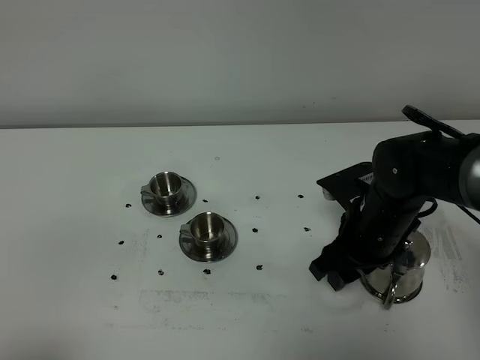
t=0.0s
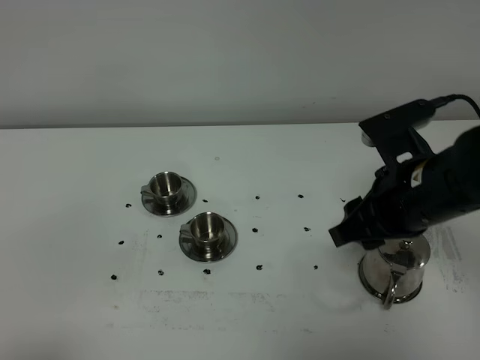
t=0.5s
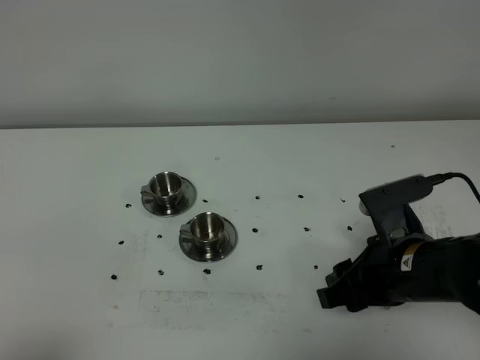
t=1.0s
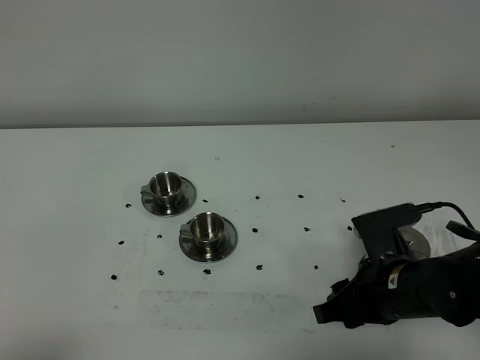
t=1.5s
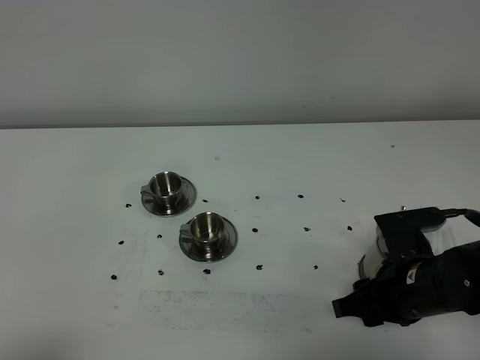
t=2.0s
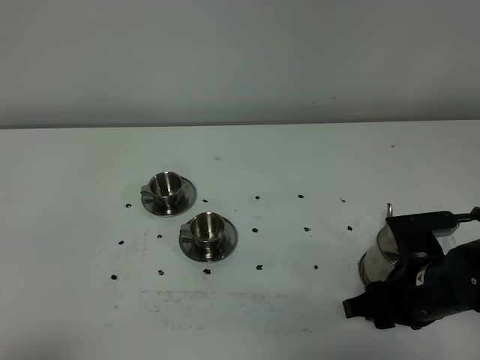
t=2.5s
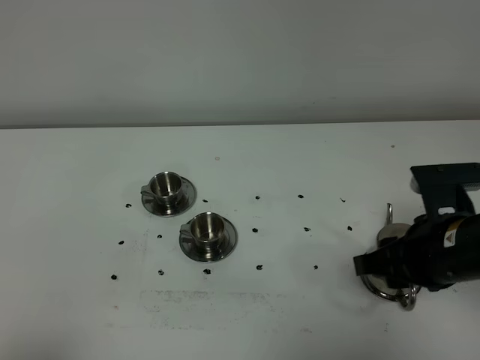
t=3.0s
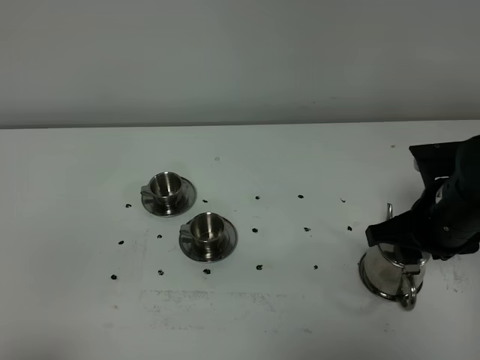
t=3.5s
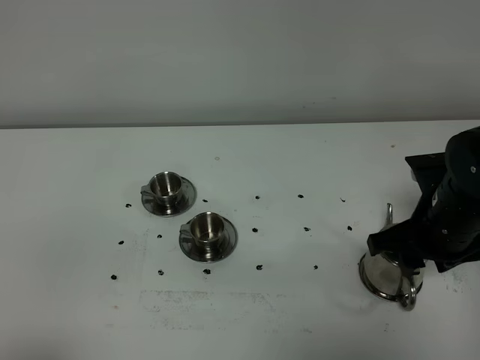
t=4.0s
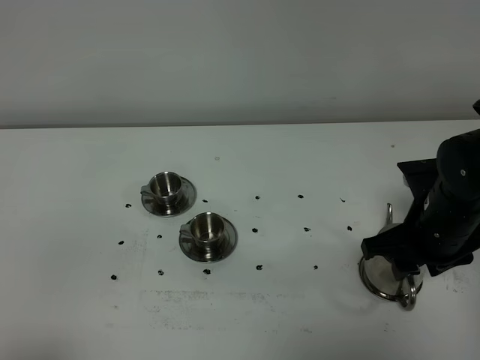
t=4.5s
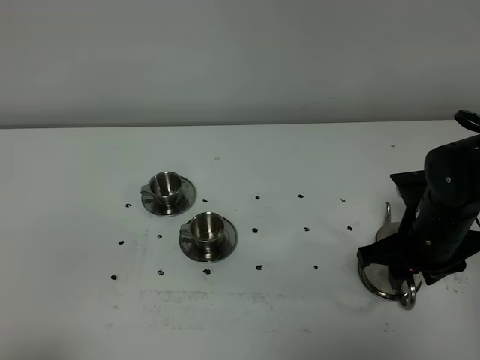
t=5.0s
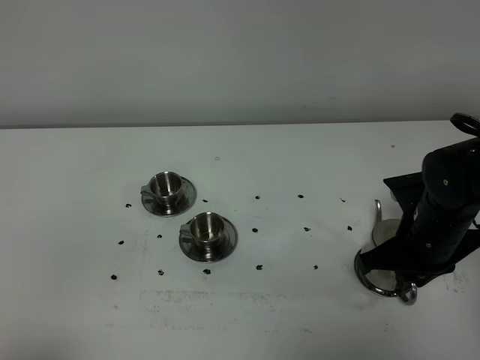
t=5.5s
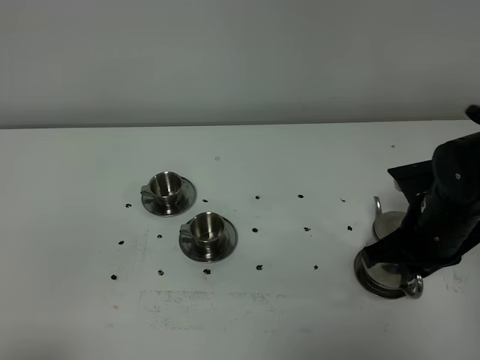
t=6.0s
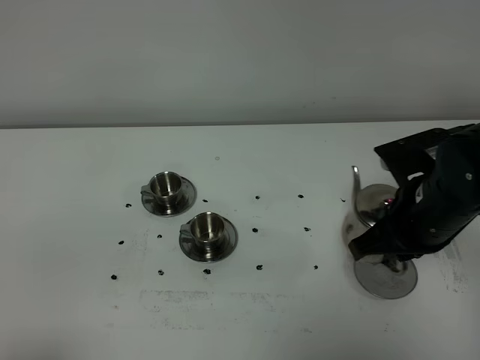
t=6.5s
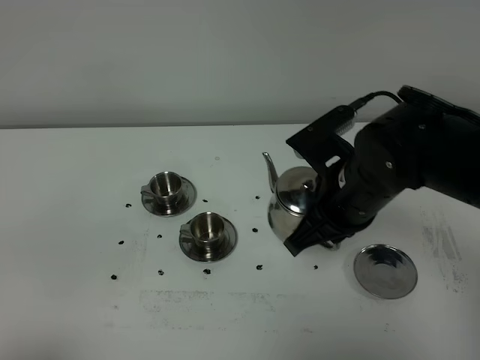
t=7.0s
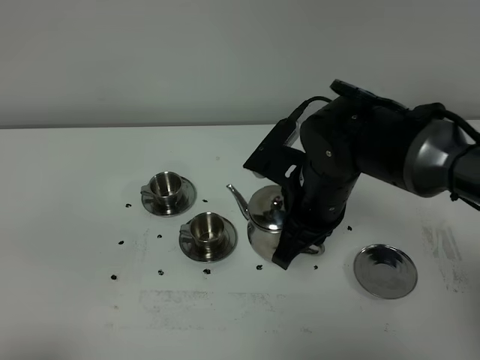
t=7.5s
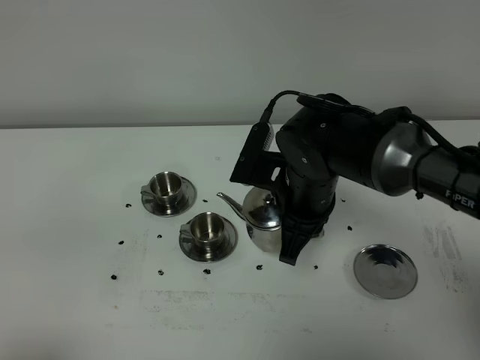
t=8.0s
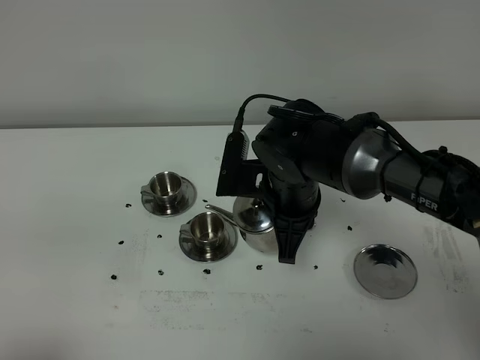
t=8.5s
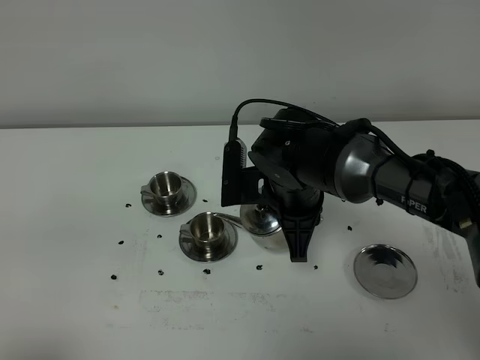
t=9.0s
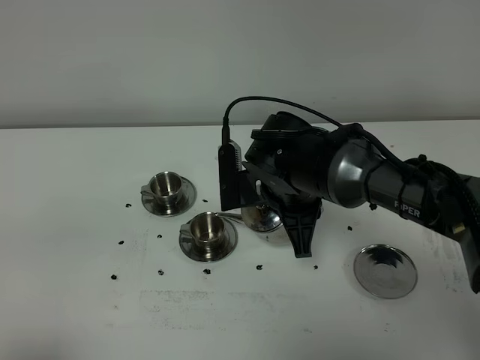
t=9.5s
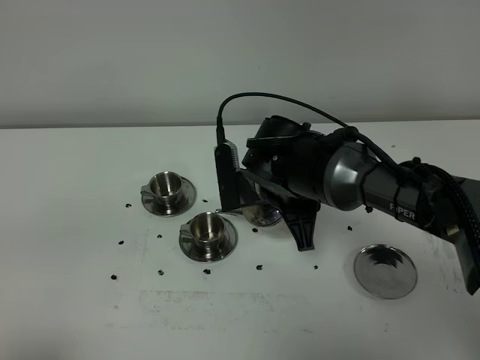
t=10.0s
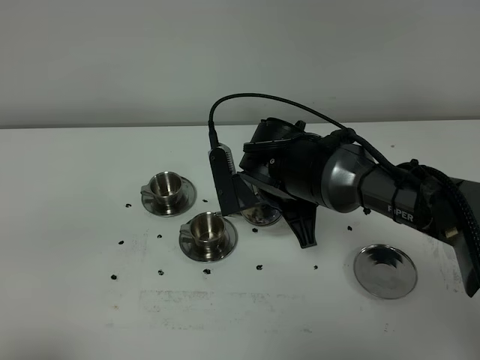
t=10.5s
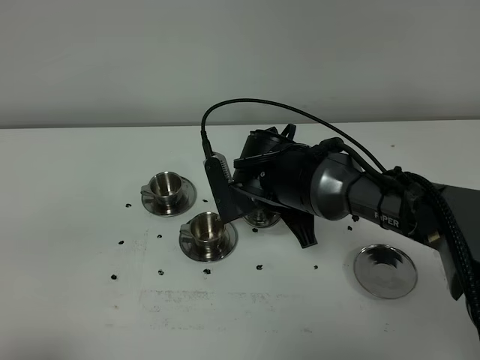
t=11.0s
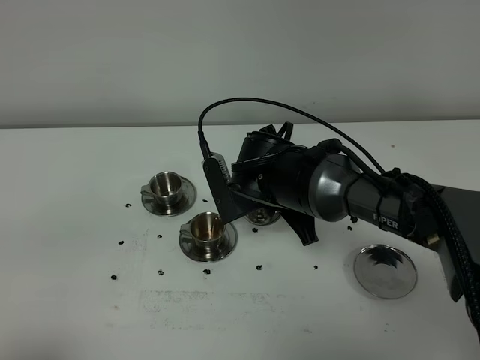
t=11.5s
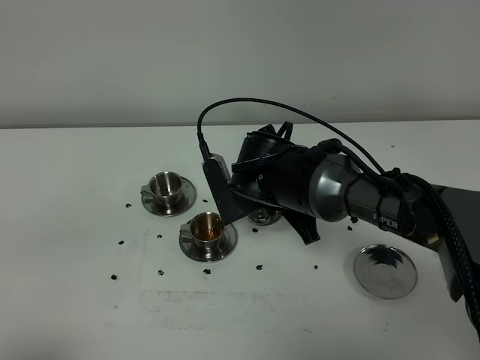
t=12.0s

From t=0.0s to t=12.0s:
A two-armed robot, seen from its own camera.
Task of the whole recording: grasp the stainless steel teapot and pour the tea into the two stainless steel teacups one by one, put the stainless steel teapot back in its original place.
Step, from t=0.0s to t=6.0s: Pick up the teapot with the right gripper.
From t=0.0s to t=2.0s: The right gripper goes about 10 cm backward, and goes upward and returns, approximately 10 cm each way.
From t=2.0s to t=4.0s: The right gripper goes roughly 10 cm upward and forward.
From t=4.0s to t=6.0s: The right gripper closes its fingers.
From t=6.0s to t=8.0s: The right gripper is displaced to the left by some 15 cm.
From t=10.0s to t=12.0s: The grippers move only a little.

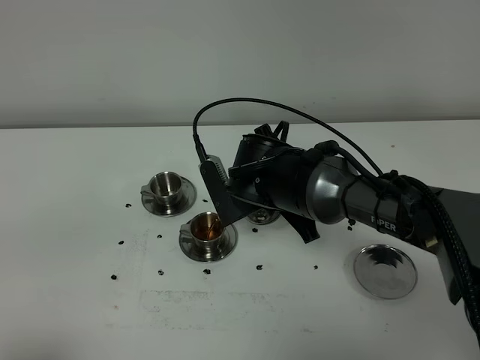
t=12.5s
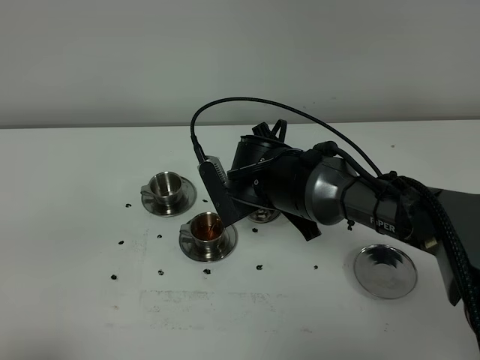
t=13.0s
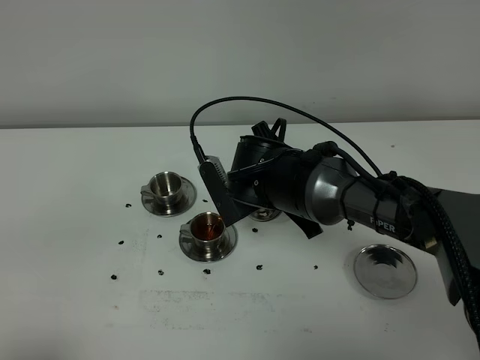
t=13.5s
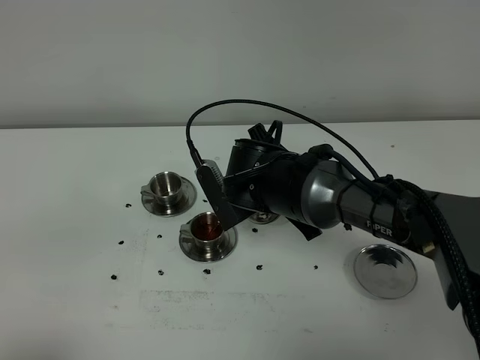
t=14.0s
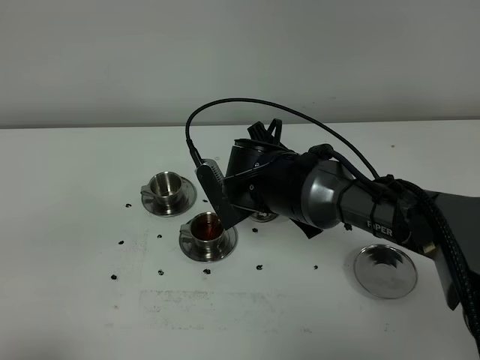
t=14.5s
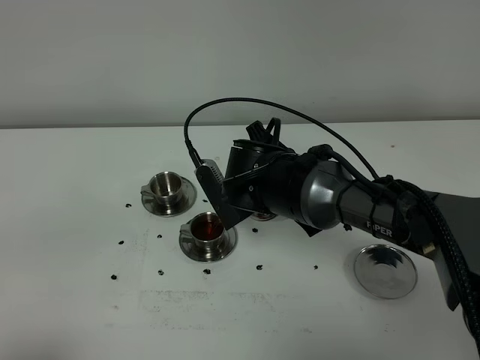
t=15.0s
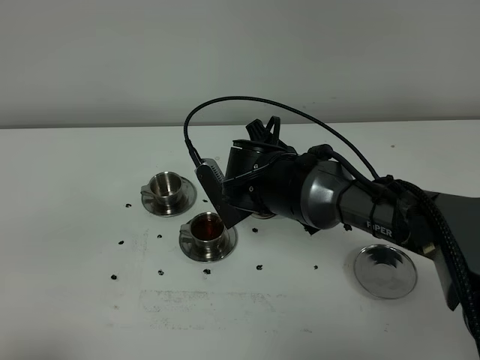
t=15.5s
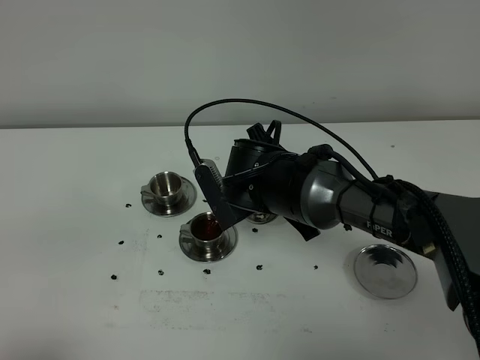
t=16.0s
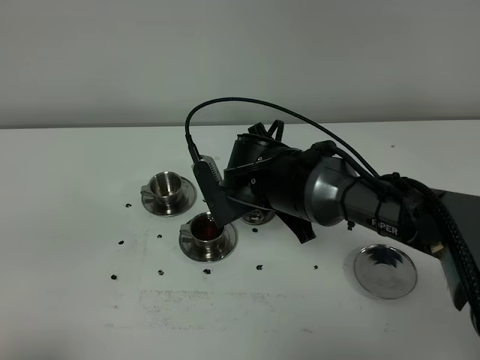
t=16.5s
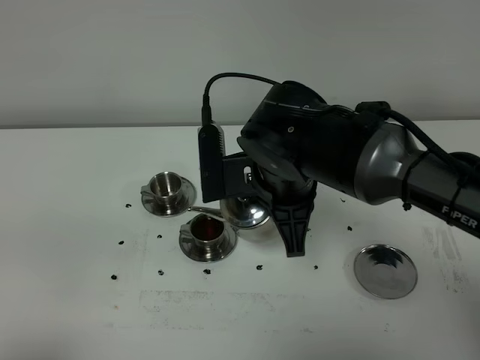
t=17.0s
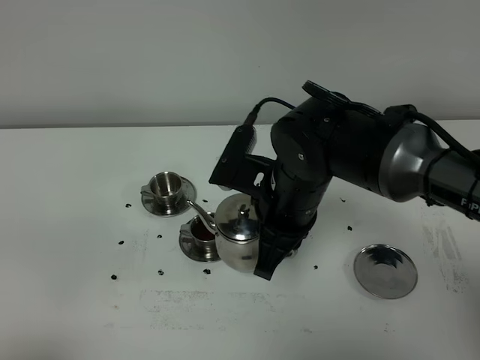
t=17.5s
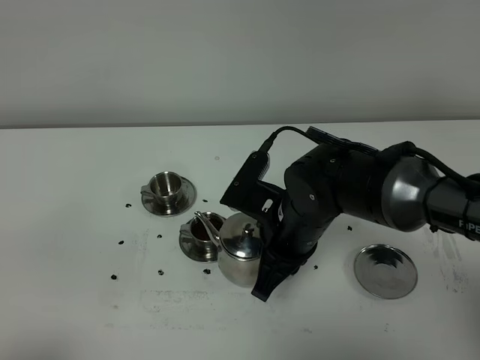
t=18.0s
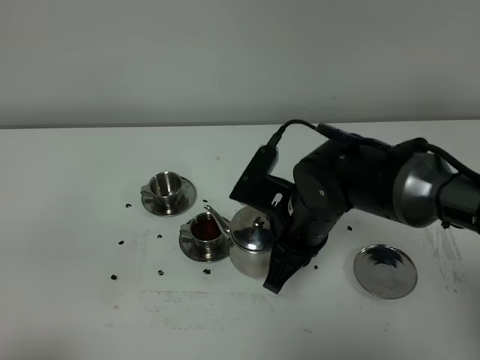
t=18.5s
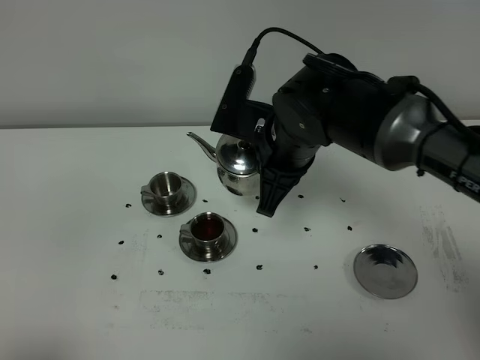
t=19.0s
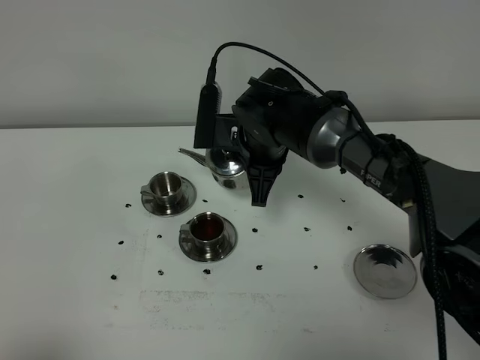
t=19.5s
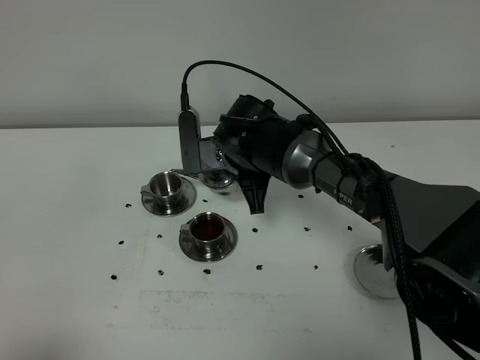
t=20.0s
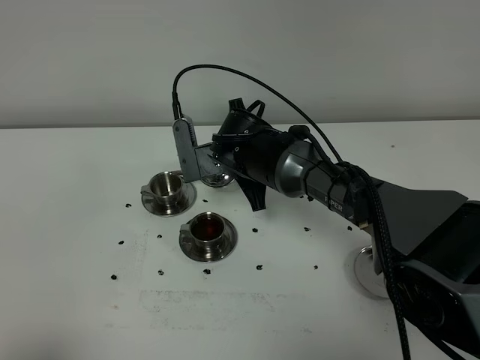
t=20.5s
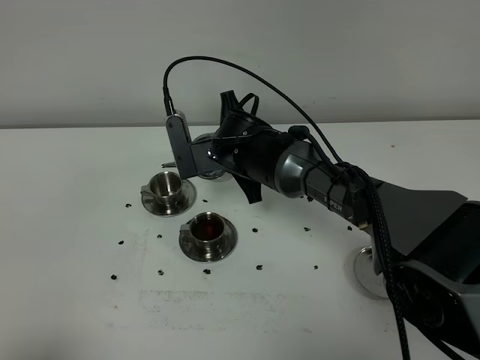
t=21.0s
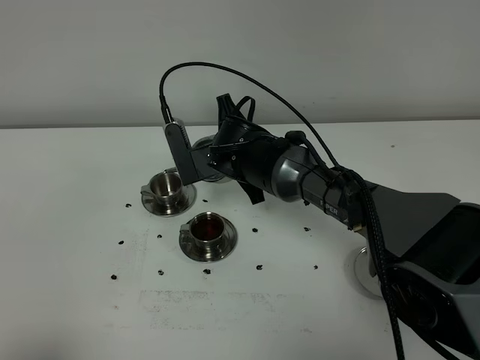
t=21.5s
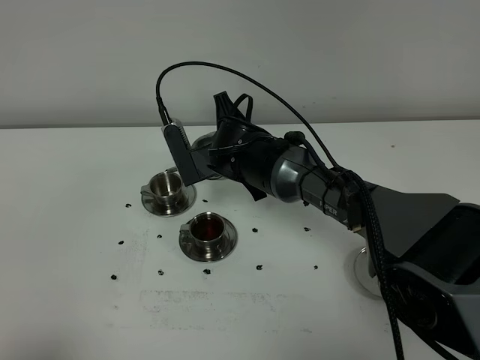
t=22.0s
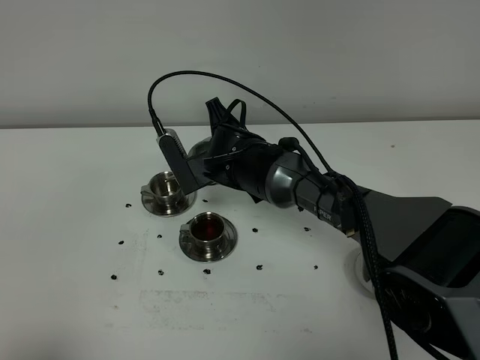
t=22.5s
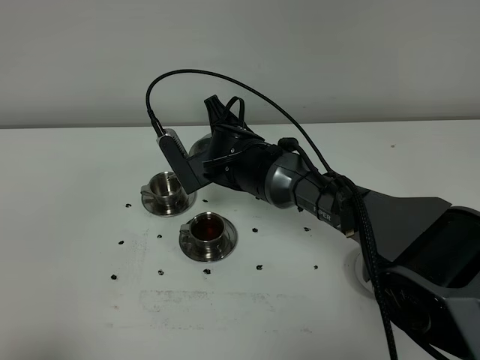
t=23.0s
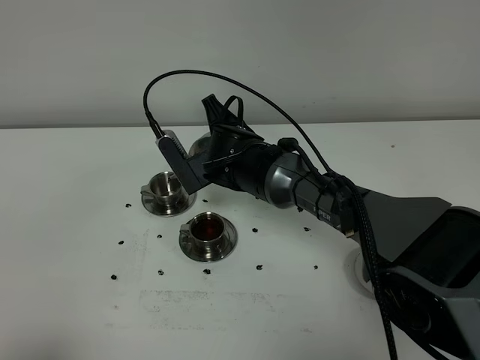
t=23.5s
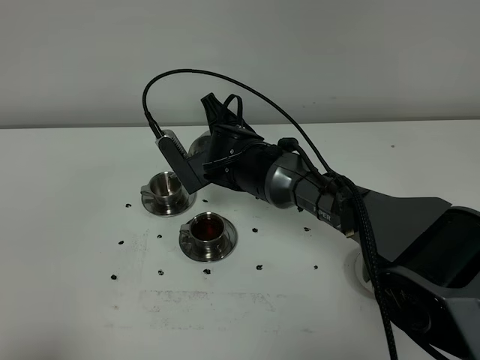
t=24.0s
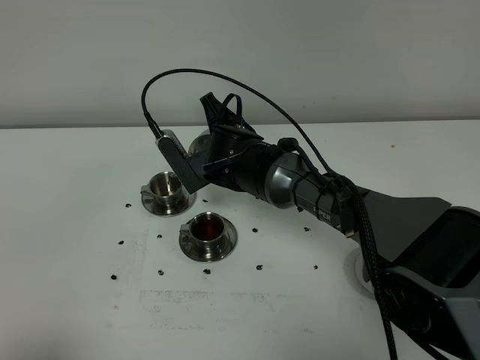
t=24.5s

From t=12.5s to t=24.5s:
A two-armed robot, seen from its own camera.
Task of the whole recording: grasp the stainless steel teapot and pour the tea into the two stainless steel teacups one by one, put the stainless steel teapot back in its original place.
Step, from t=12.5s to t=16.5s: Pour tea into the teacup with the right gripper.
From t=12.5s to t=16.5s: The grippers stay close to where they were, moving slightly.
From t=16.5s to t=18.5s: The right gripper shifts by some 5 cm.
From t=18.5s to t=20.5s: The right gripper heads forward and to the left, covering roughly 15 cm.
From t=20.5s to t=22.5s: There are only small adjustments of the grippers.
From t=22.5s to t=24.5s: The grippers make only small movements.

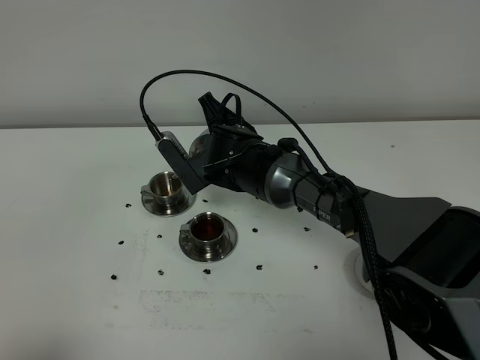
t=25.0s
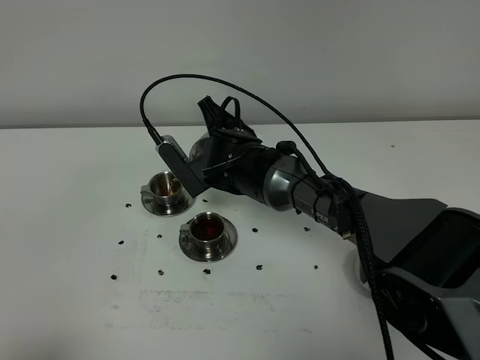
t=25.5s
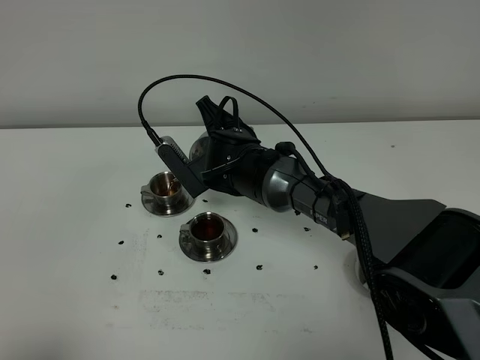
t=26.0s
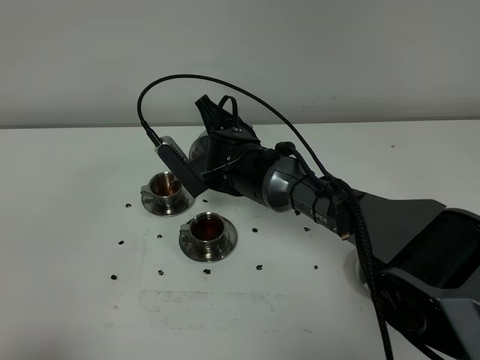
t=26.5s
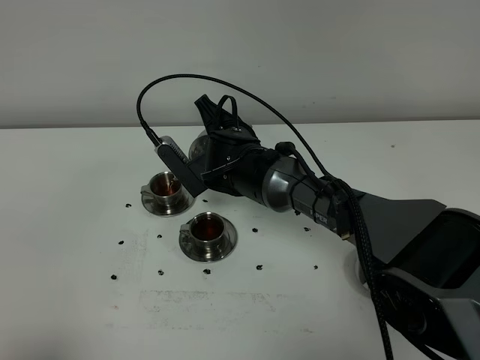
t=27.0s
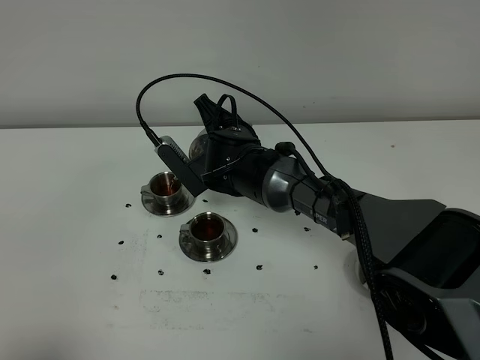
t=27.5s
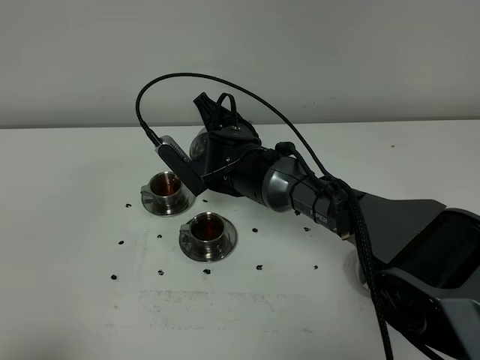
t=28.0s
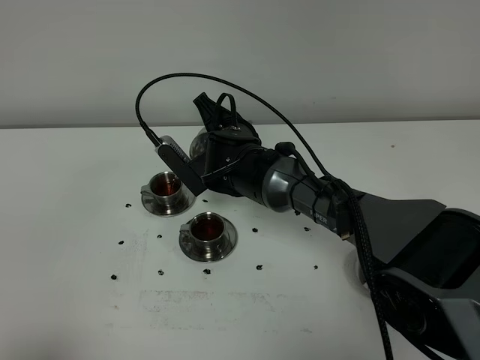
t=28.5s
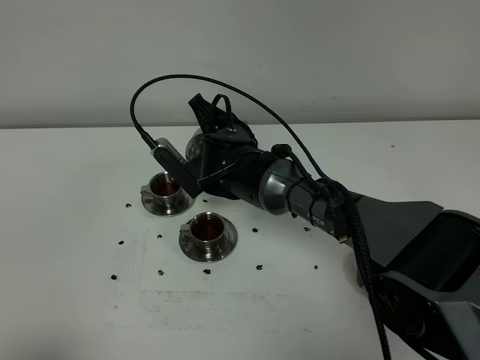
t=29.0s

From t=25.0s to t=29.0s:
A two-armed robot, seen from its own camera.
Task of the whole recording: grasp the stainless steel teapot and pour the tea into the two stainless steel teacups one by one, put the stainless steel teapot back in its original place.
From t=25.0s to t=27.0s: Neither gripper changes place.
From t=27.0s to t=29.0s: Both grippers stay put.
